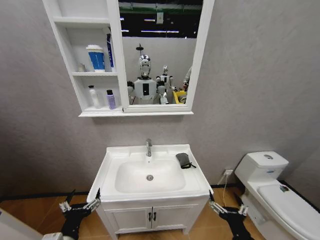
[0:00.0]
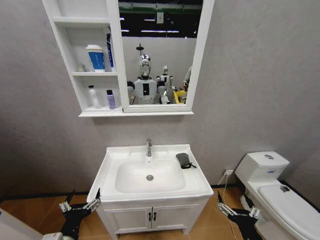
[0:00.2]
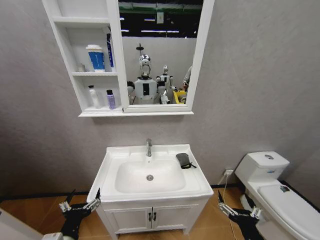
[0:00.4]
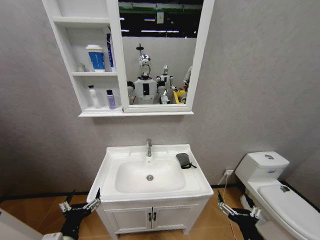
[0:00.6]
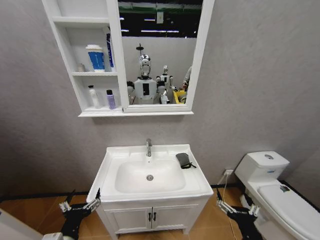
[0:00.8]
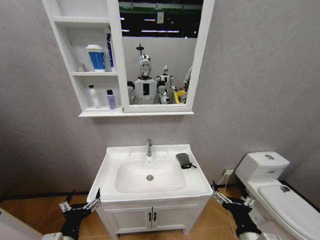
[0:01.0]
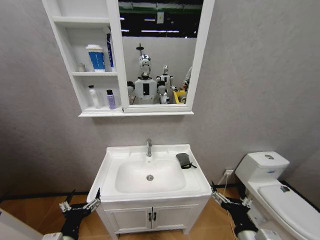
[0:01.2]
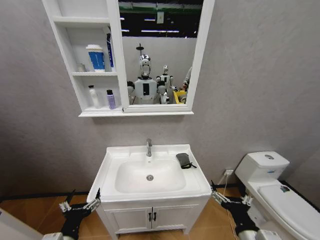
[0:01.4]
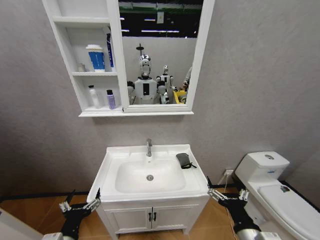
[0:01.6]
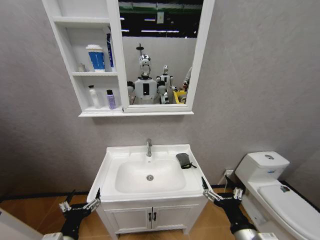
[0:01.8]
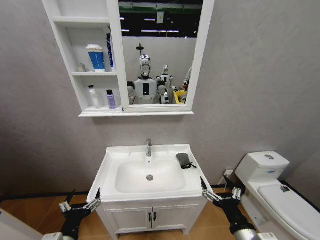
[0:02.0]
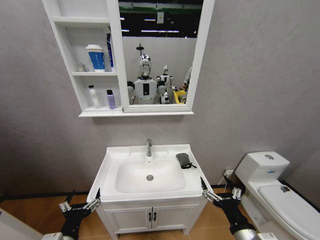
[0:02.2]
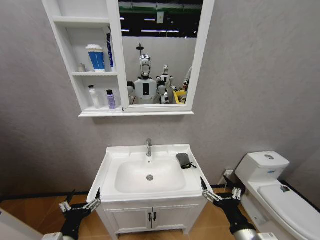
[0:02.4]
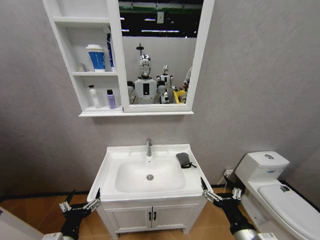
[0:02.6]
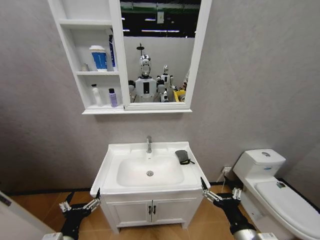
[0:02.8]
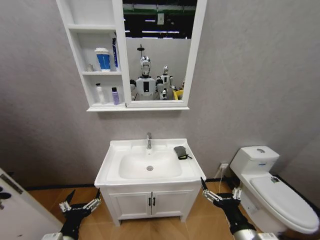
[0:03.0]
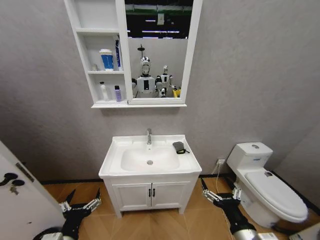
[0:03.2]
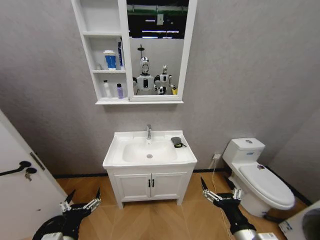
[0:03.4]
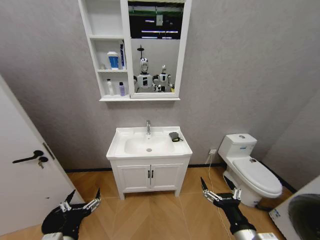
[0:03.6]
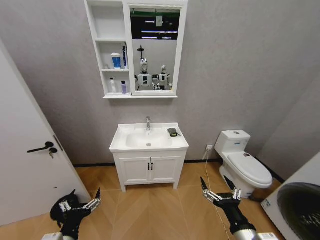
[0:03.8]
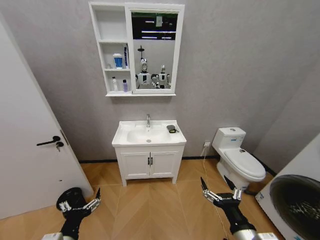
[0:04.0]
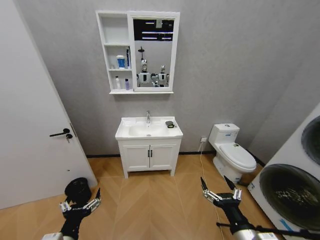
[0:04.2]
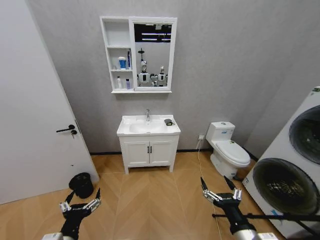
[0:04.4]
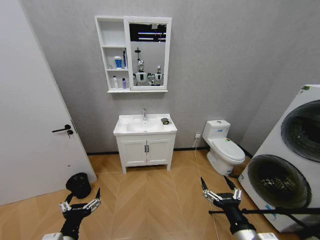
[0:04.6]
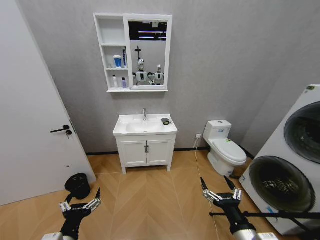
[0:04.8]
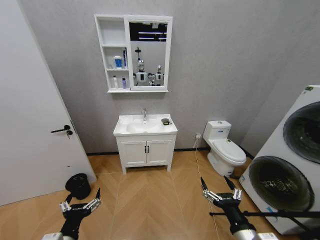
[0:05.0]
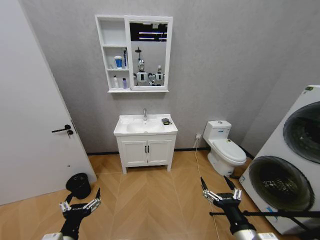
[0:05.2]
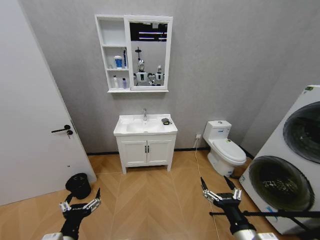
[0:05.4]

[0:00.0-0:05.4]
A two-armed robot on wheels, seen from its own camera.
Task of the whole recording: Move facial cleanser and shampoo from washbasin to cabinet, then wipe washbasin with towel.
0:00.0 to 0:01.4: The right gripper goes approximately 5 cm upward.
0:01.4 to 0:02.8: There are only small adjustments of the grippers.

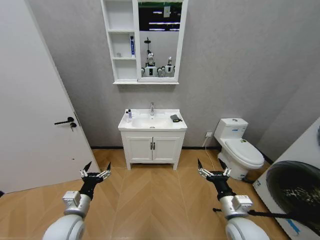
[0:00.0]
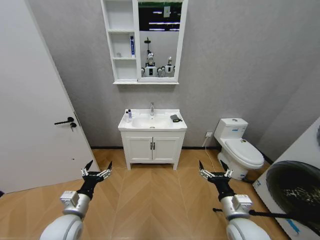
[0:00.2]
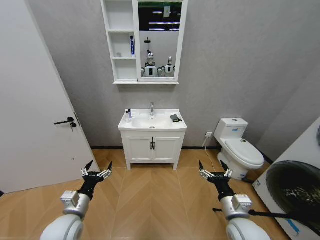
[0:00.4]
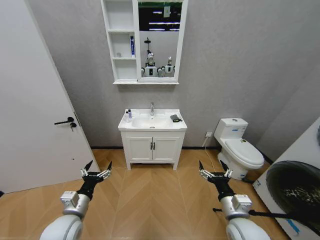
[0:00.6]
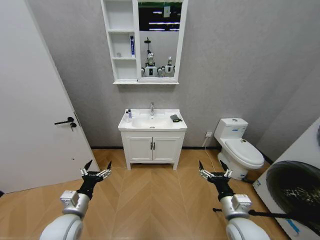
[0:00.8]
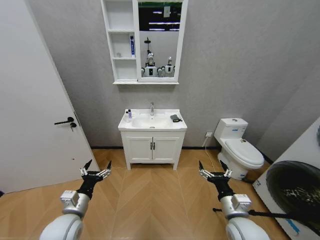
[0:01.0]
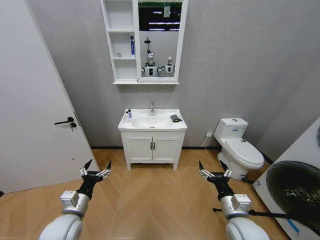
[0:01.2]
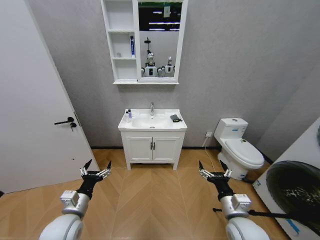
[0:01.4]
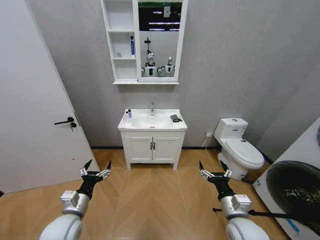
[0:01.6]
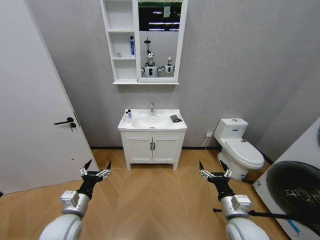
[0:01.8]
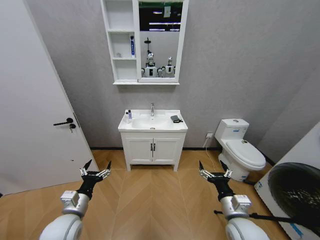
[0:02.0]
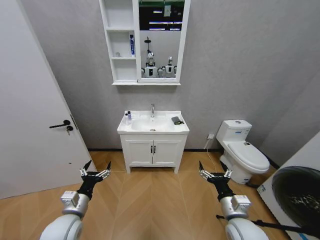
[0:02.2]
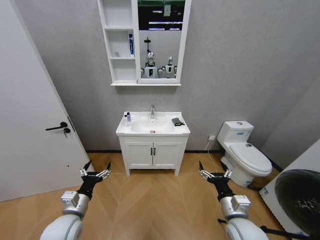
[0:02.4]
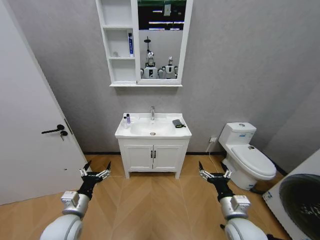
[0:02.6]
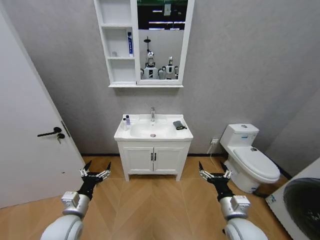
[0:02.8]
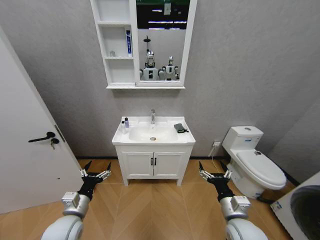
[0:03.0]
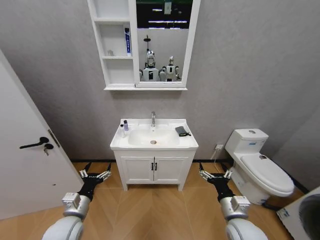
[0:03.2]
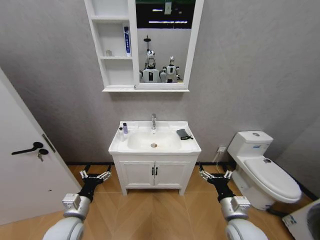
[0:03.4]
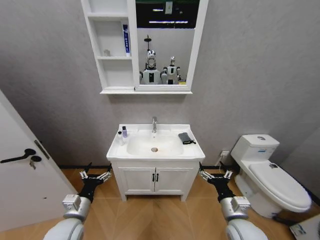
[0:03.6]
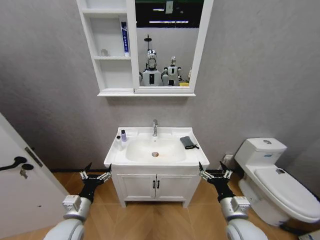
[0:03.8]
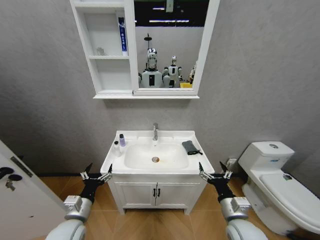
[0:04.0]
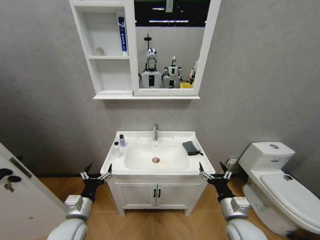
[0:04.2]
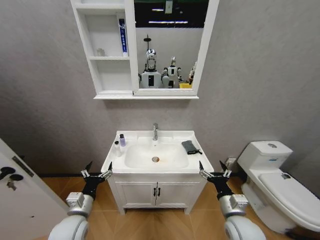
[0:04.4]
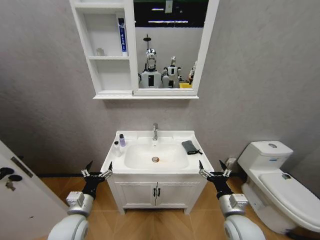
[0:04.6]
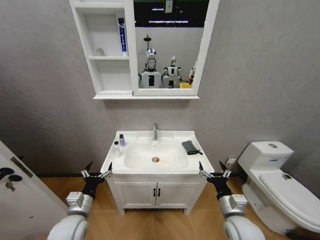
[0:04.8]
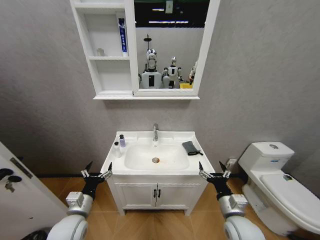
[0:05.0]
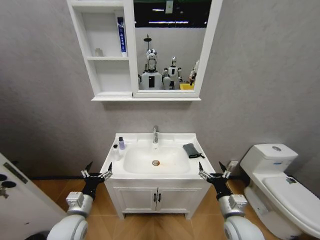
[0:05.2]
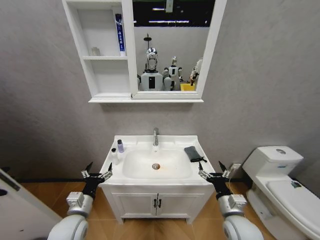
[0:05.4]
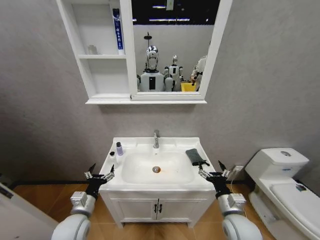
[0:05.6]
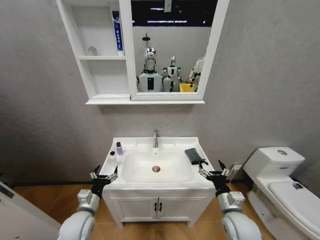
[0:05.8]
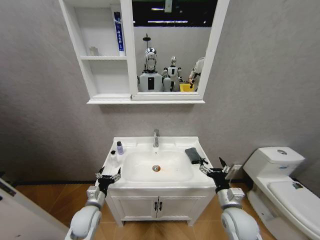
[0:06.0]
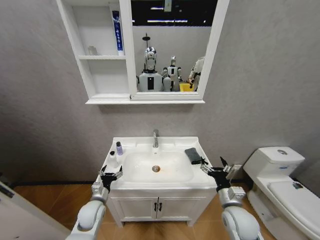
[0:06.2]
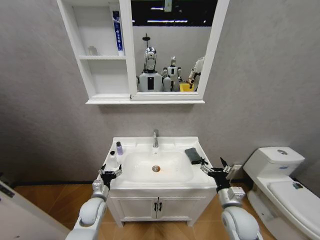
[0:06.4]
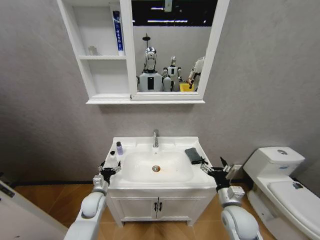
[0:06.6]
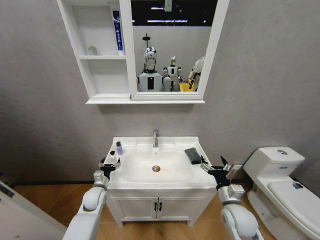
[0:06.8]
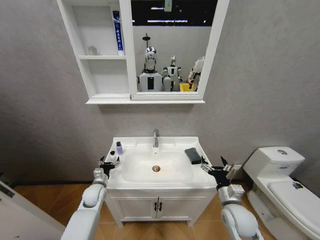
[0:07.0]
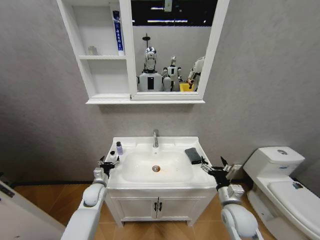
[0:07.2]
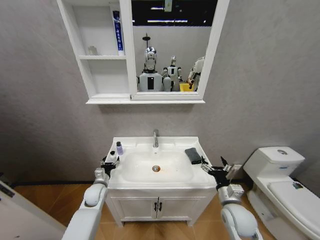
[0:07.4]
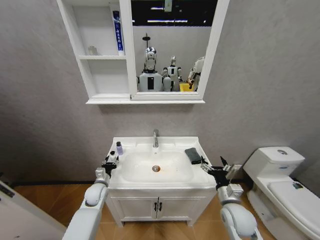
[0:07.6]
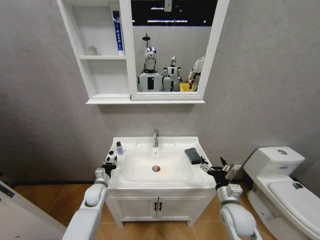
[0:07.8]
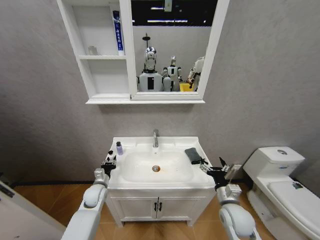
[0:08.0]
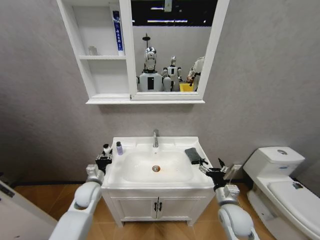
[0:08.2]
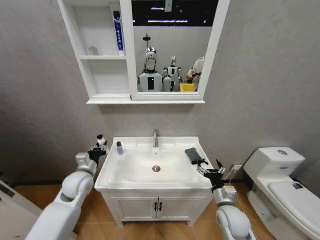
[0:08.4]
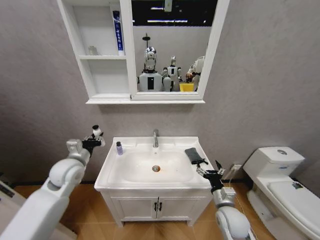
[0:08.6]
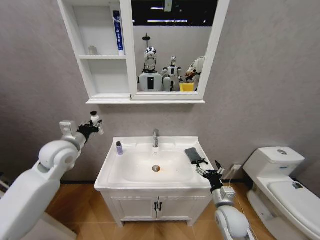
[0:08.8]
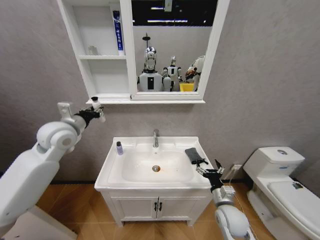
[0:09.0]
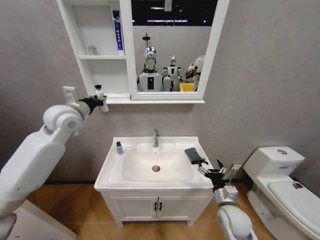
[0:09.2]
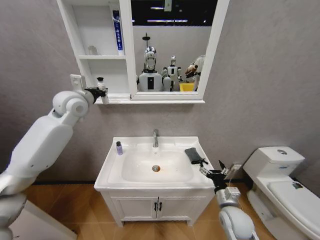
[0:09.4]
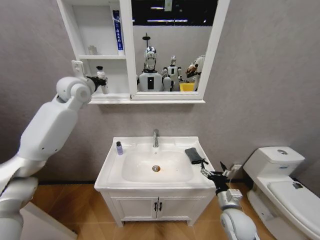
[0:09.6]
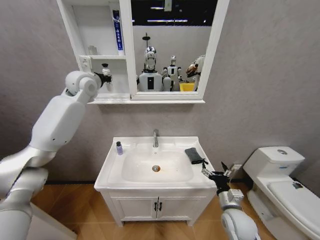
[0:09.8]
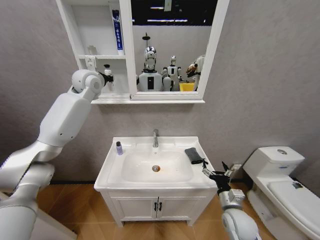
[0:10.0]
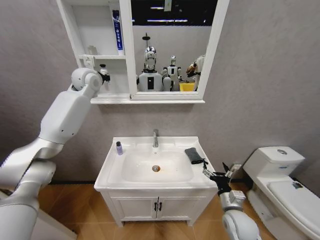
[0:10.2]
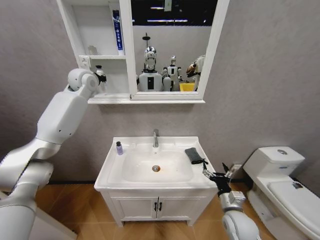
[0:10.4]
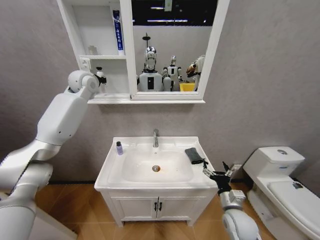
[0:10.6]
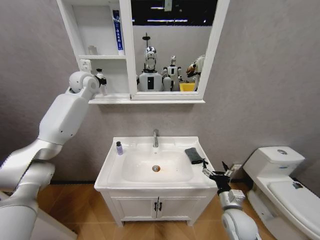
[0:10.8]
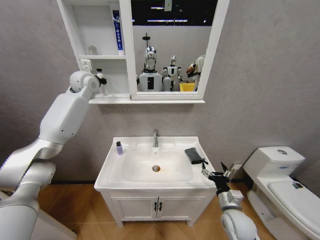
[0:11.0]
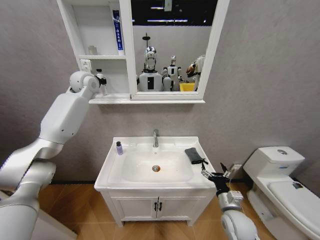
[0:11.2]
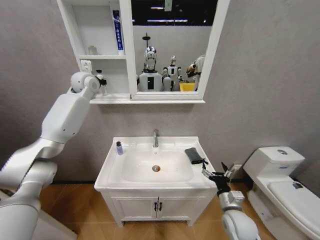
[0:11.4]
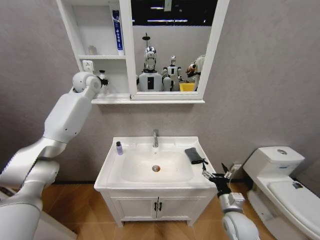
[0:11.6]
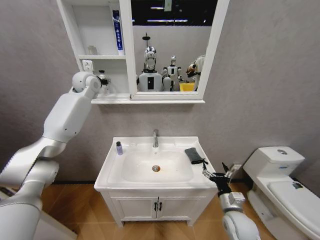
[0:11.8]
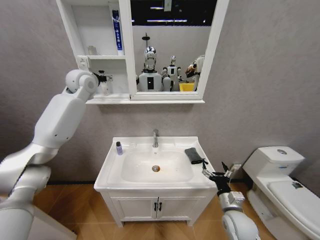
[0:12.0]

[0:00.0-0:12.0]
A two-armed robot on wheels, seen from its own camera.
Task of the whole recording: Move facial cleanser and shampoo from washbasin to cabinet, then wipe washbasin with towel.
0:04.4 to 0:06.0: The left gripper heads downward, covering some 5 cm.
0:06.0 to 0:07.6: The left gripper shifts about 10 cm forward, and closes up.
0:07.6 to 0:09.0: The left gripper shifts roughly 35 cm upward, and closes.
0:09.0 to 0:10.4: The left gripper heads forward and upward, covering approximately 20 cm.
0:10.4 to 0:12.0: The left gripper opens its fingers.

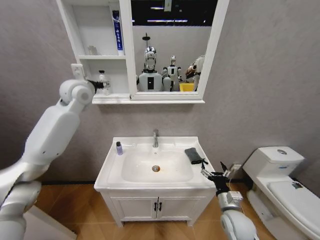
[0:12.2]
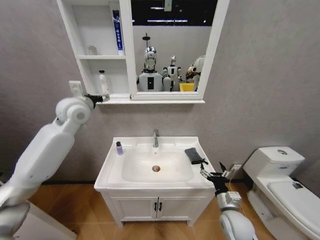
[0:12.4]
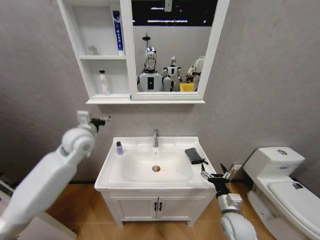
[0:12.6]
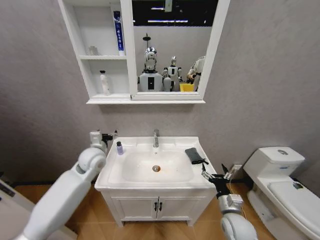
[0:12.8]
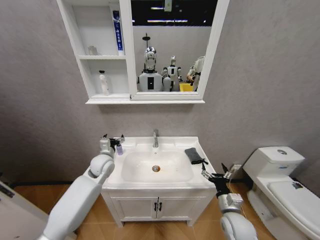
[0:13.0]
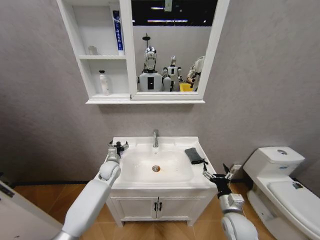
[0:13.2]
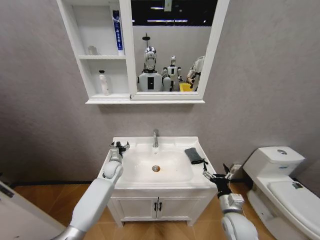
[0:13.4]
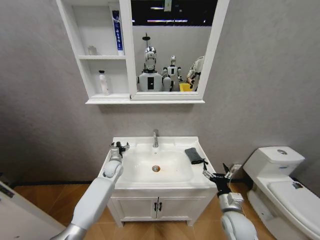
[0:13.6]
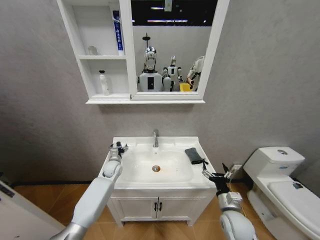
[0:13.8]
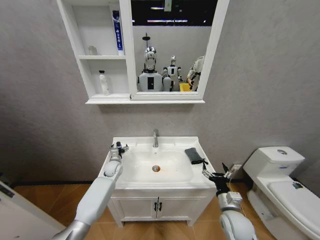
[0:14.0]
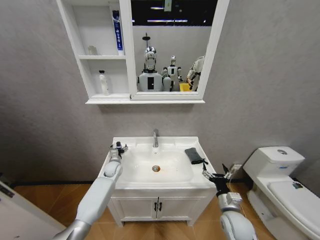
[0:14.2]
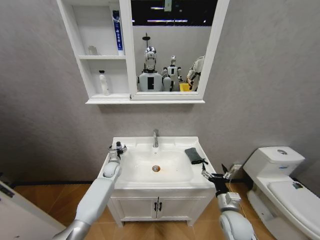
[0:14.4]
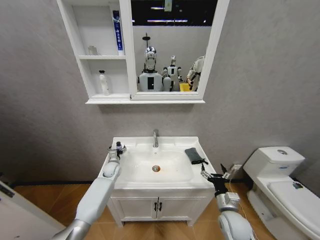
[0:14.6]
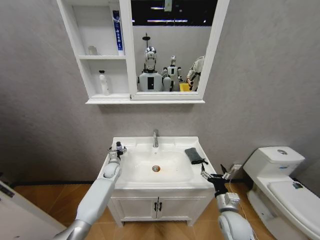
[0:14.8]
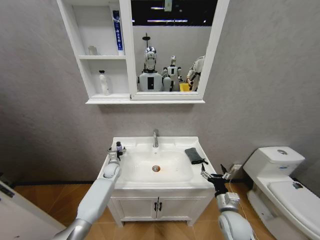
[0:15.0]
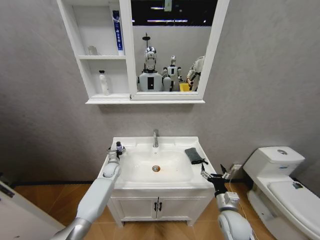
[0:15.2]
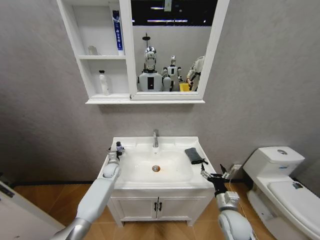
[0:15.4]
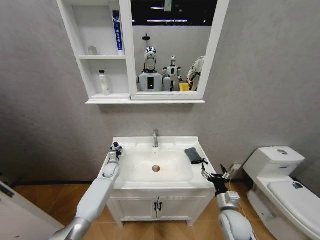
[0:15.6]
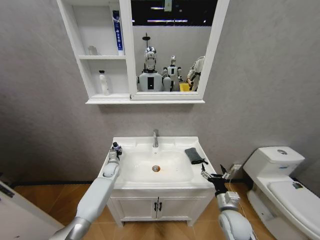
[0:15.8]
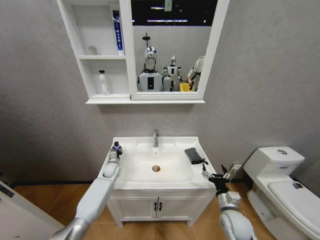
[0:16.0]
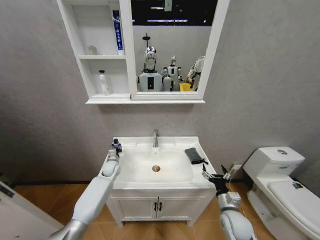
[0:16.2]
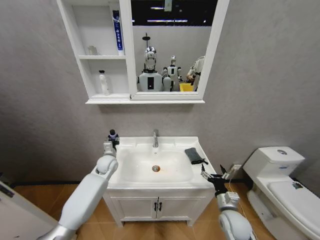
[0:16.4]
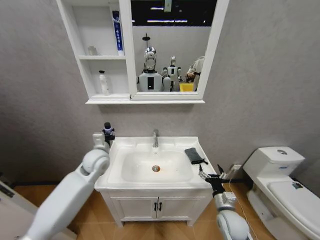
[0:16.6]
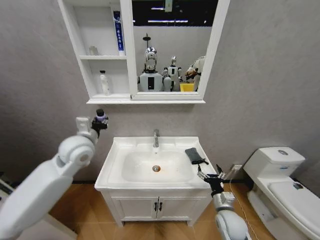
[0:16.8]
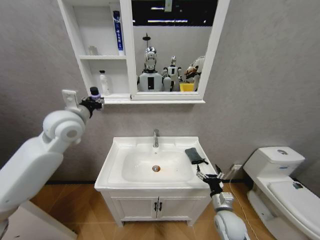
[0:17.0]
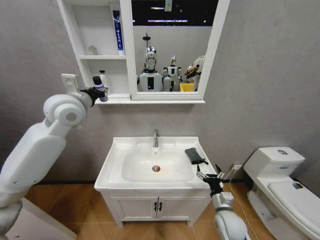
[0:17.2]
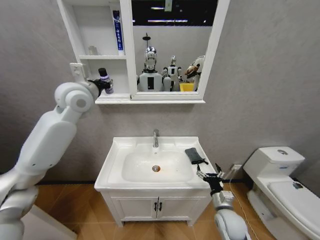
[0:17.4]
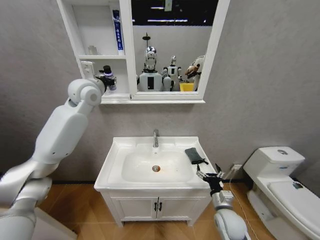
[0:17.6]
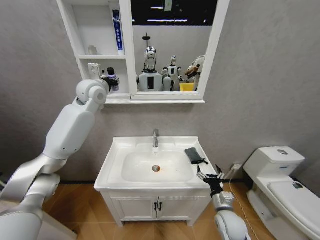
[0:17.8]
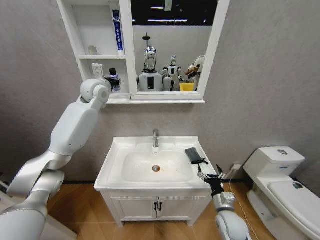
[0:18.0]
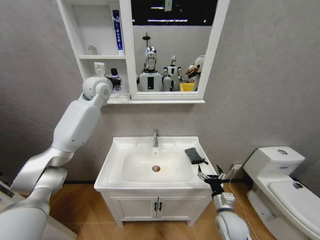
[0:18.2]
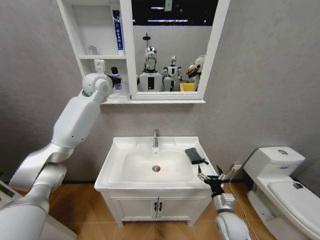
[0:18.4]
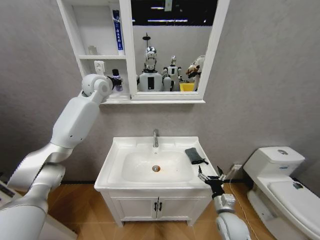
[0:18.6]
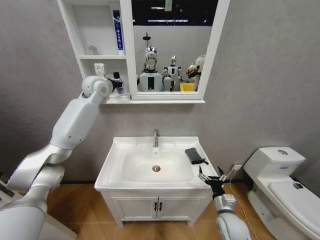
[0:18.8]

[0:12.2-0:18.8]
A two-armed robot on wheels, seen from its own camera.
Task of the whole recording: Move facial cleanser and shampoo from washbasin to cabinet, then wipe washbasin with towel.
0:12.2 to 0:13.8: The left gripper heads downward, covering approximately 40 cm.
0:13.8 to 0:15.4: The left gripper travels downward by roughly 5 cm.
0:15.4 to 0:17.2: The left gripper is displaced upward by approximately 40 cm, and closes its fingers.
0:17.2 to 0:18.8: The left gripper is displaced forward by roughly 15 cm.
